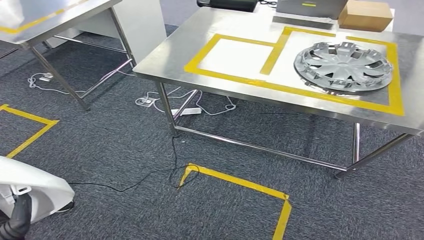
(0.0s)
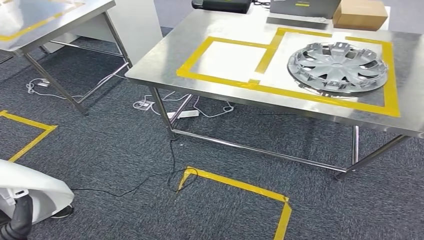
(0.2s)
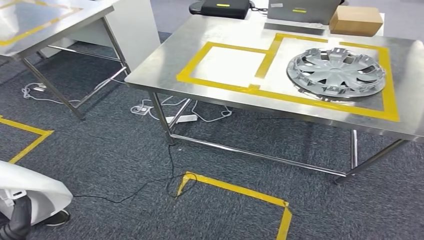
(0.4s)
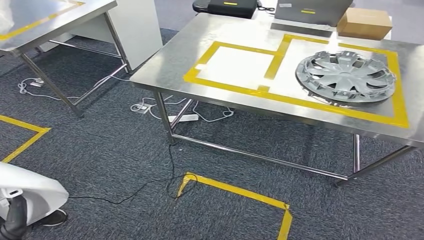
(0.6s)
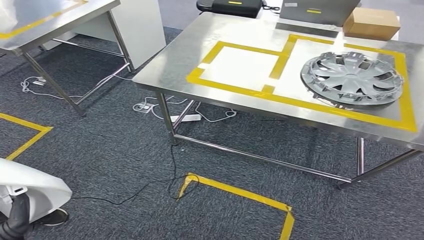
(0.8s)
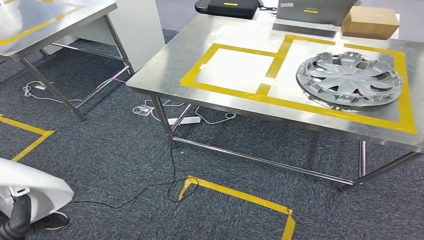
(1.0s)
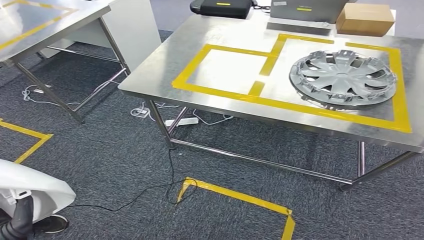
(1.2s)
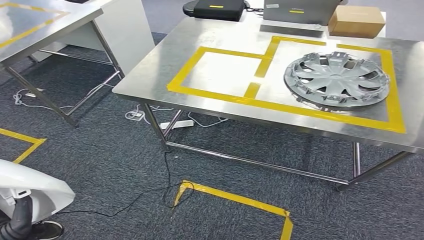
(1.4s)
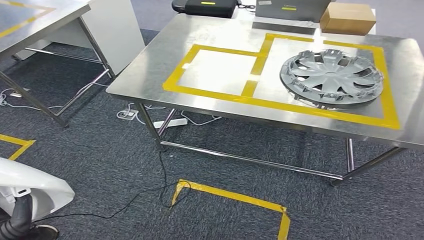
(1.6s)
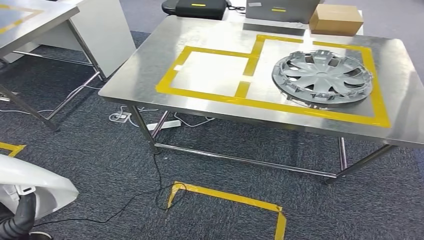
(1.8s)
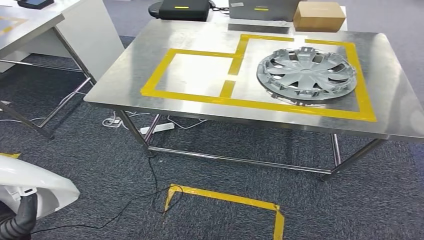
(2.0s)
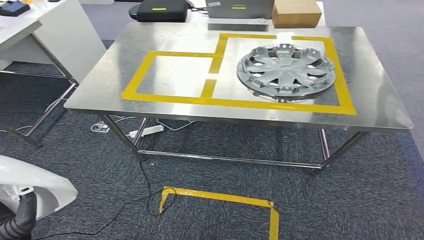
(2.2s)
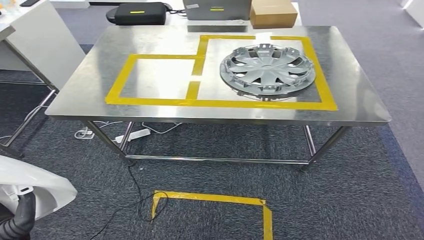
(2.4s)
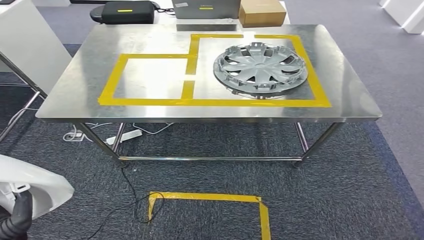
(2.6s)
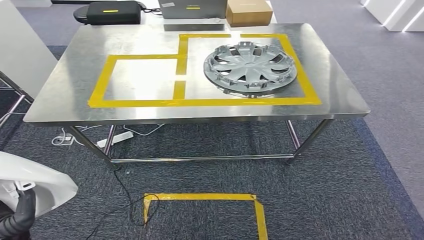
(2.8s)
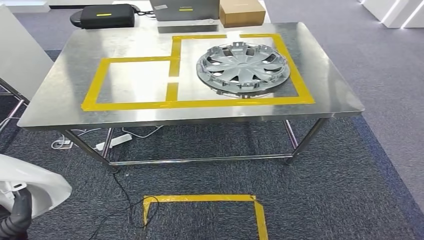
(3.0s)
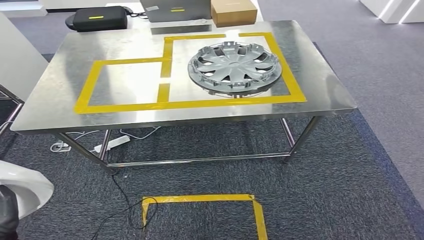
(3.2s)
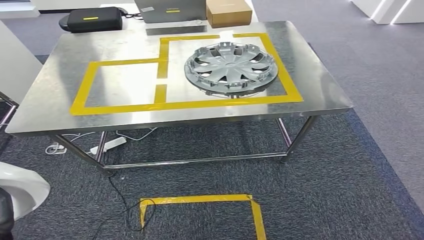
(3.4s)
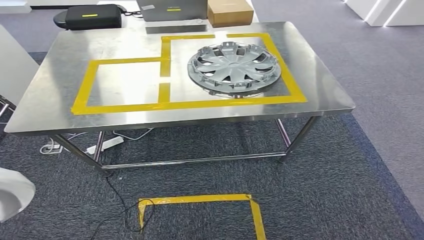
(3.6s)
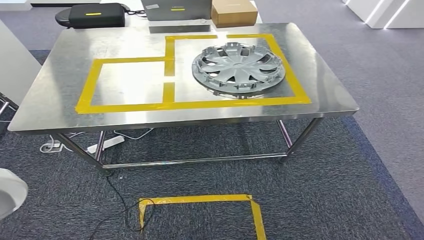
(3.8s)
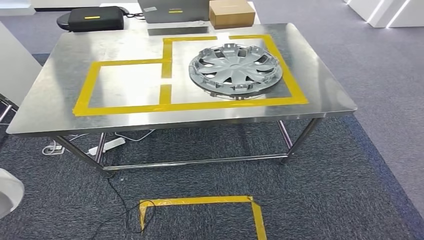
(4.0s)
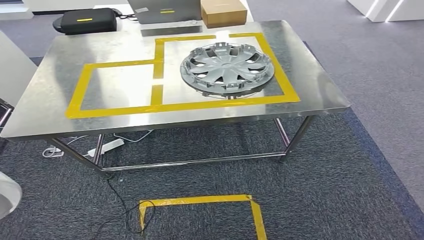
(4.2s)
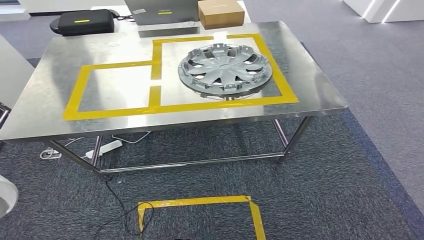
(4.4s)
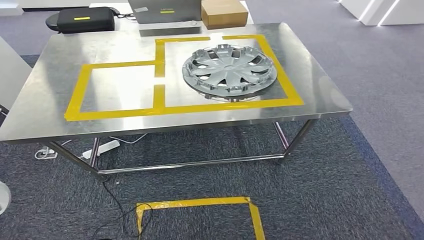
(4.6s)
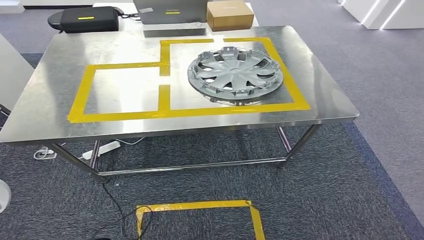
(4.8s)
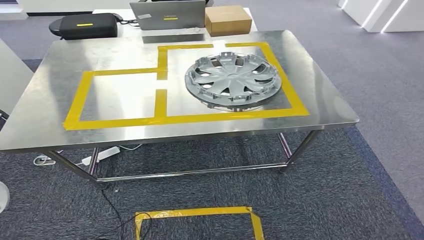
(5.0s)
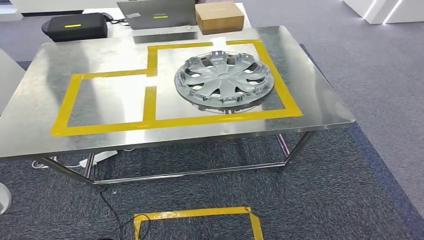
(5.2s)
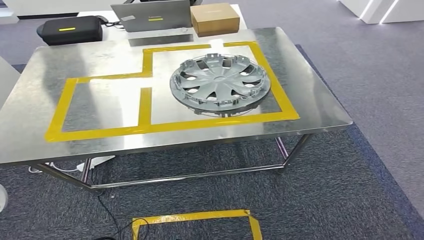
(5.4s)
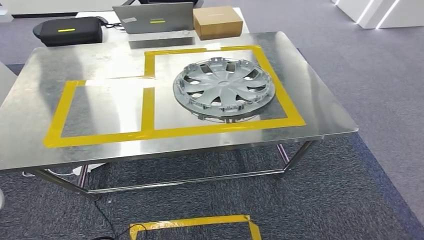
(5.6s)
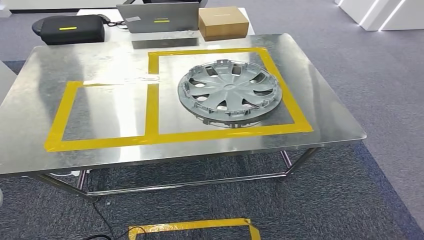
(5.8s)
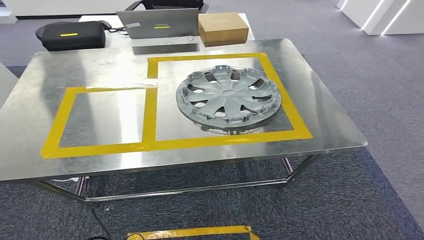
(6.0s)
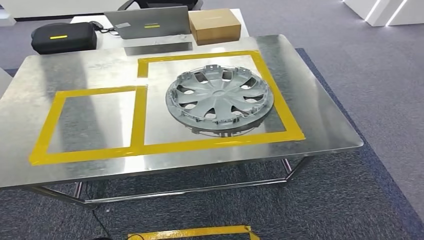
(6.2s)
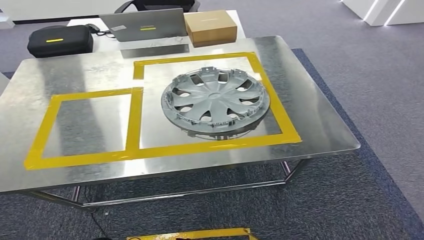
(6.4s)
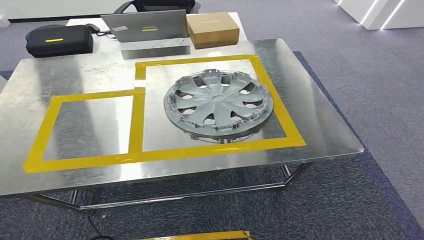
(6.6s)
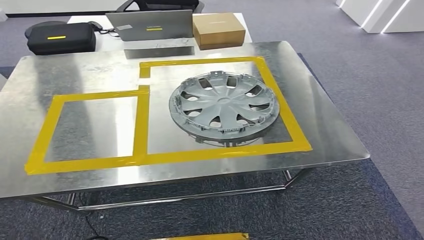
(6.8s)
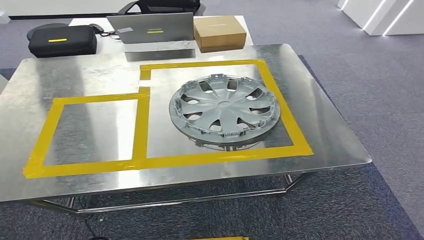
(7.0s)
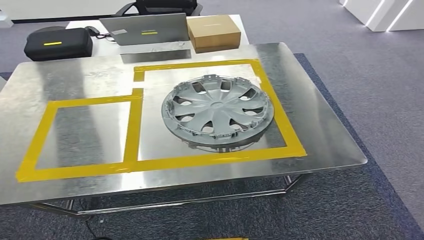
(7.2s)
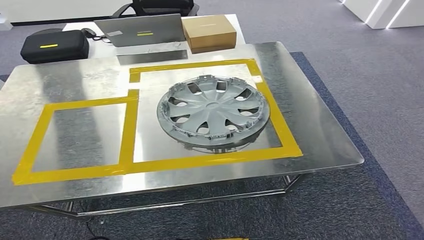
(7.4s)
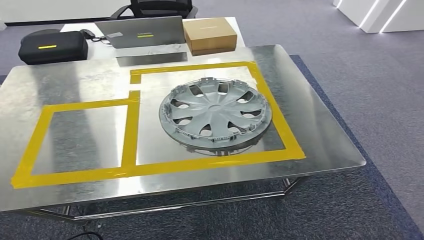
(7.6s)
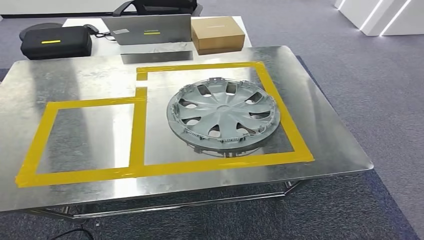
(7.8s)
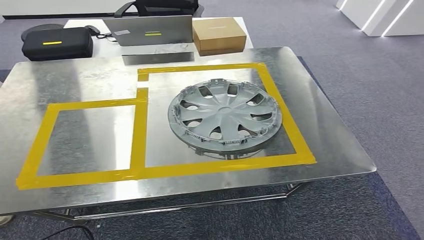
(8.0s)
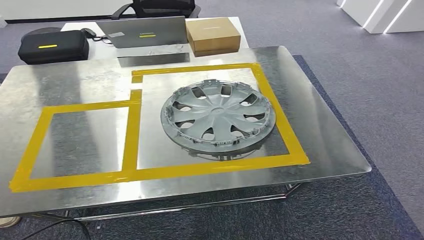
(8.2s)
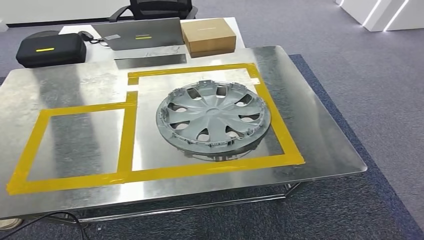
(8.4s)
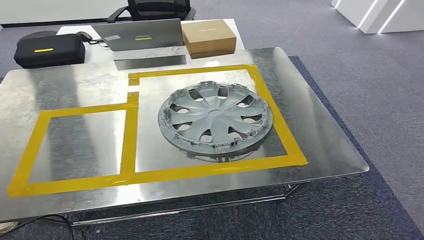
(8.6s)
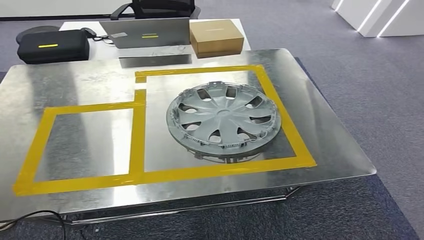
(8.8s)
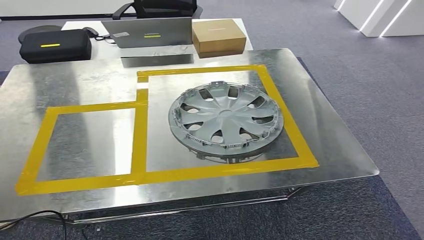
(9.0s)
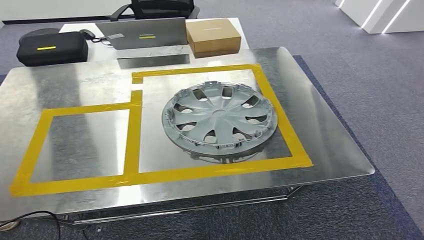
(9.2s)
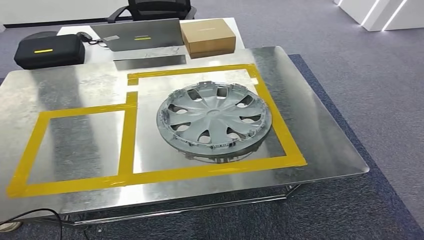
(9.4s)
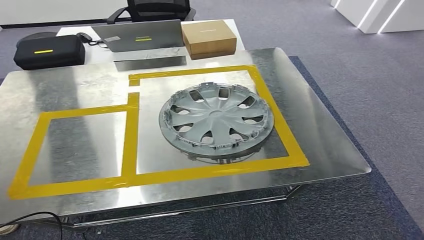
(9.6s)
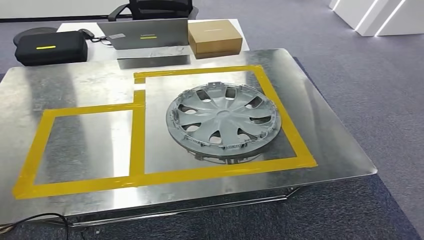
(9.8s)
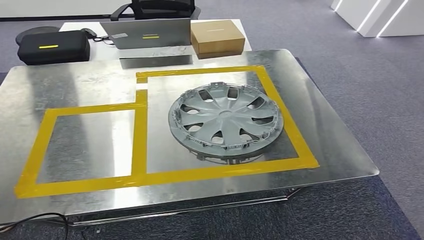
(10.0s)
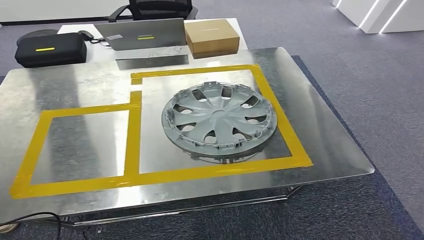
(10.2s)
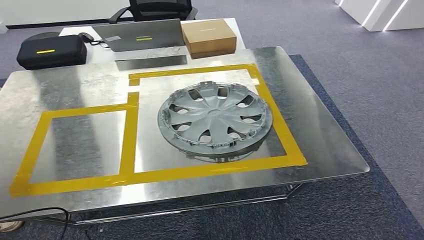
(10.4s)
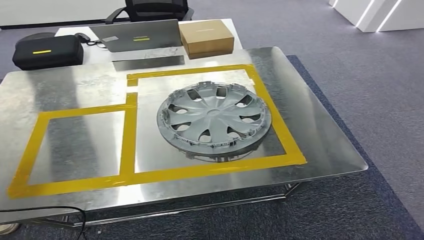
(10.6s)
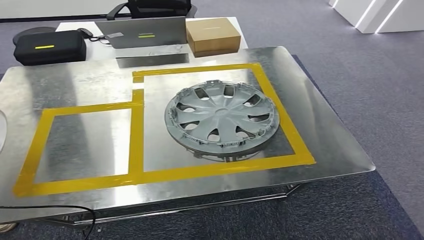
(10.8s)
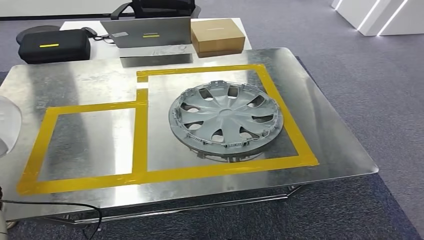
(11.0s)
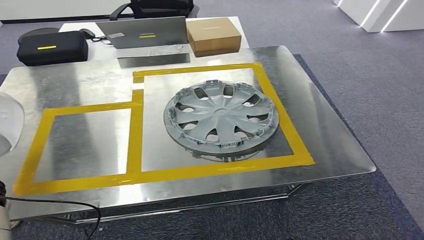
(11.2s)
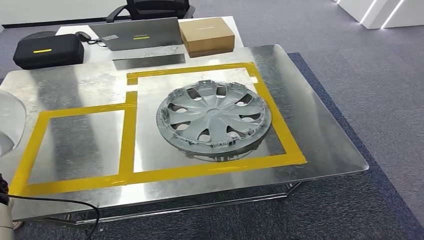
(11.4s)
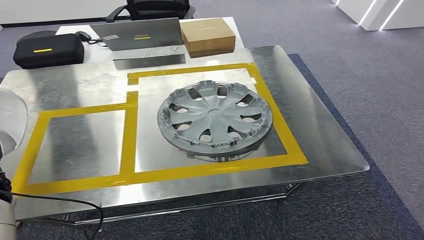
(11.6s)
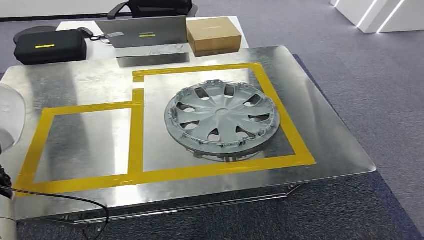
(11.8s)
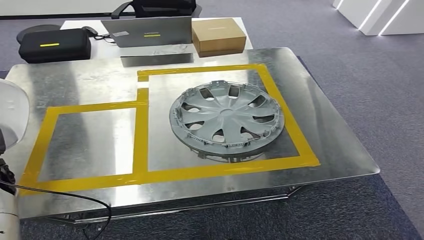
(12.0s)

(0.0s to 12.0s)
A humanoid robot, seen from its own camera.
Step, 0.0s - 12.0s: Move the small parts to the workbench.

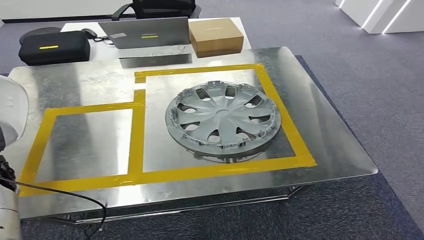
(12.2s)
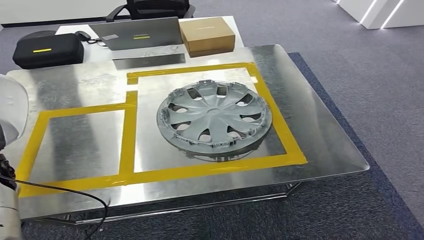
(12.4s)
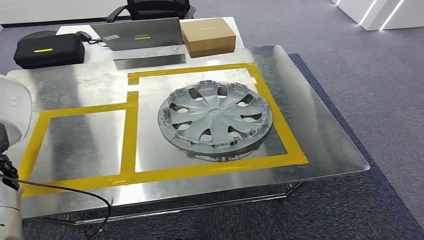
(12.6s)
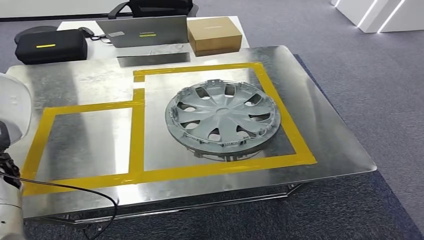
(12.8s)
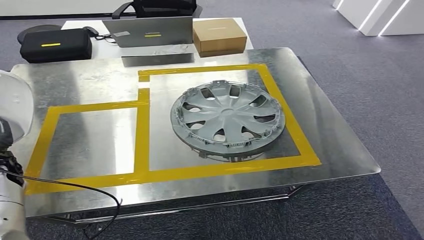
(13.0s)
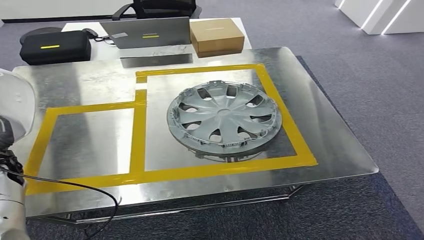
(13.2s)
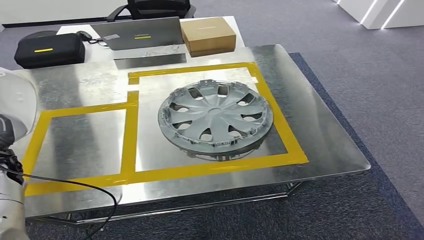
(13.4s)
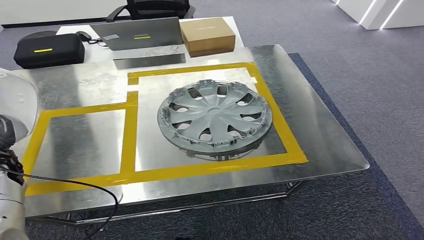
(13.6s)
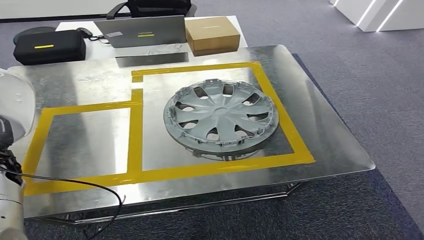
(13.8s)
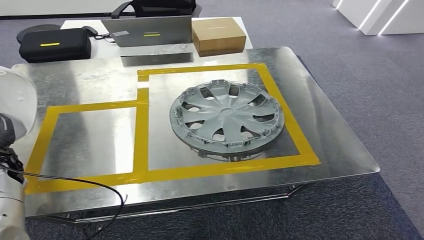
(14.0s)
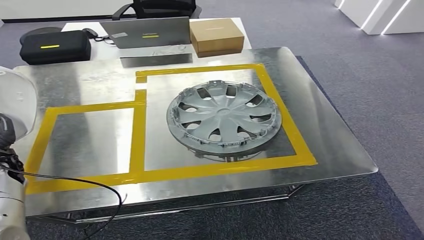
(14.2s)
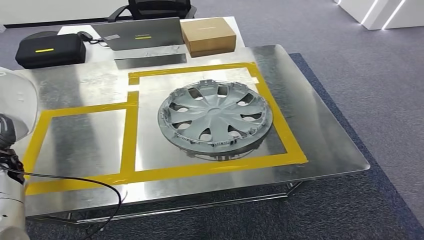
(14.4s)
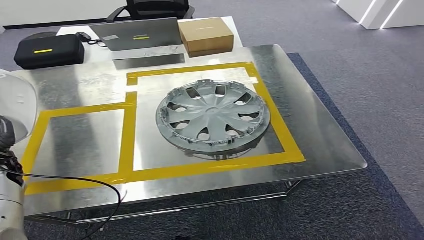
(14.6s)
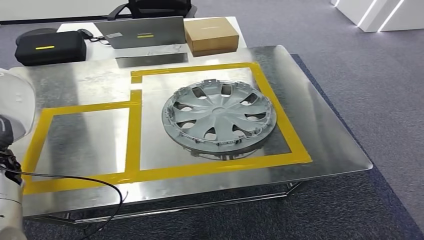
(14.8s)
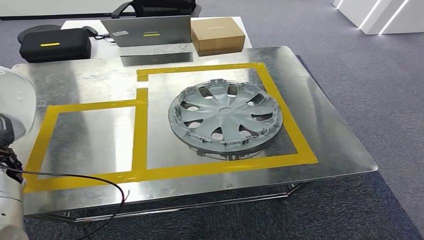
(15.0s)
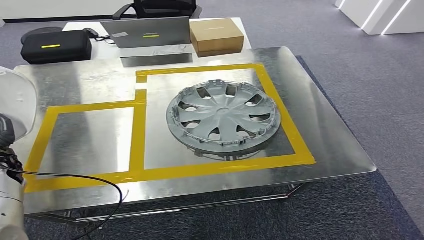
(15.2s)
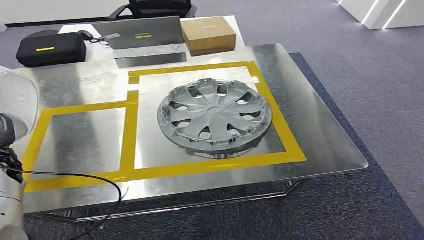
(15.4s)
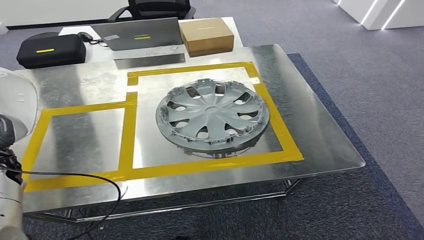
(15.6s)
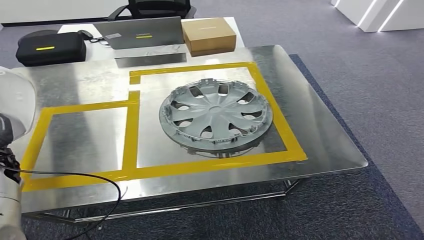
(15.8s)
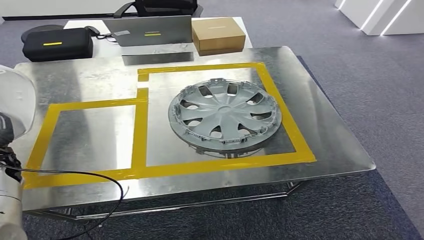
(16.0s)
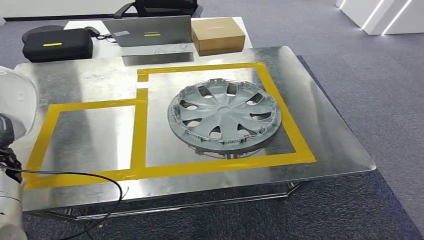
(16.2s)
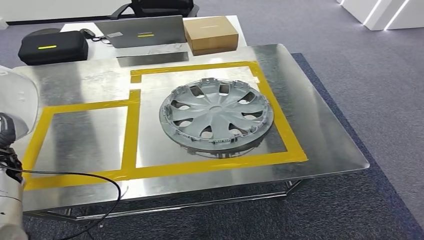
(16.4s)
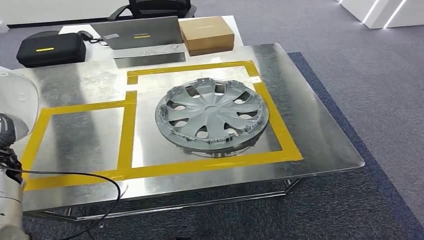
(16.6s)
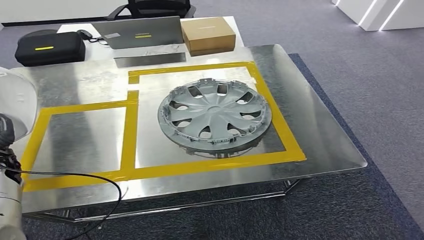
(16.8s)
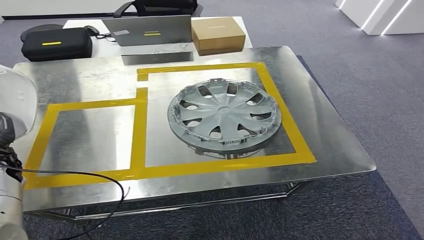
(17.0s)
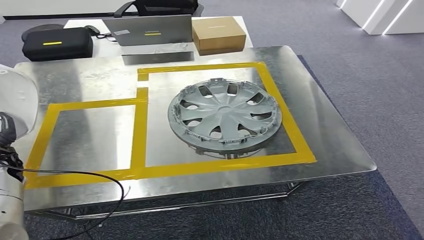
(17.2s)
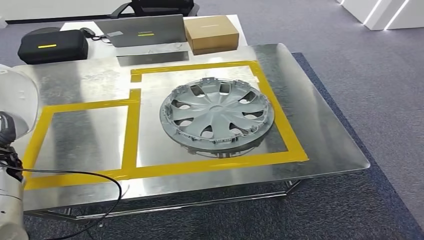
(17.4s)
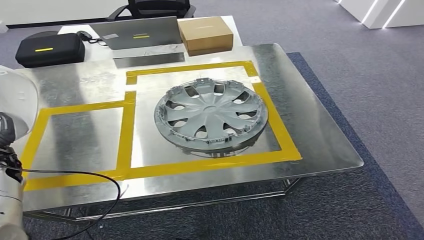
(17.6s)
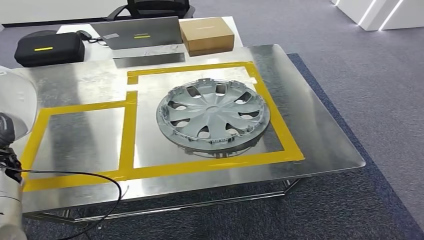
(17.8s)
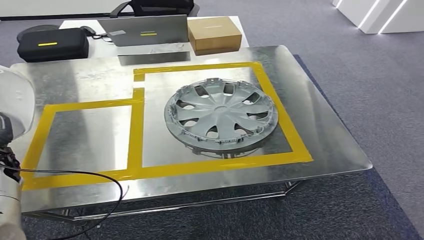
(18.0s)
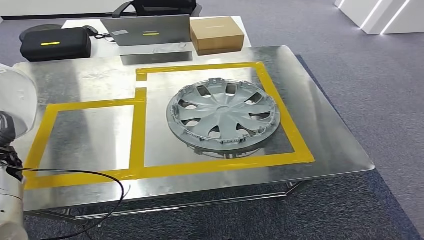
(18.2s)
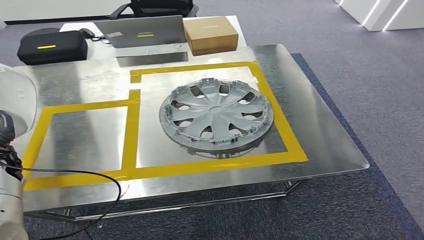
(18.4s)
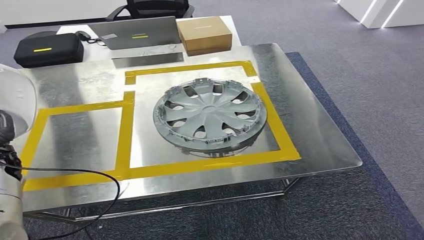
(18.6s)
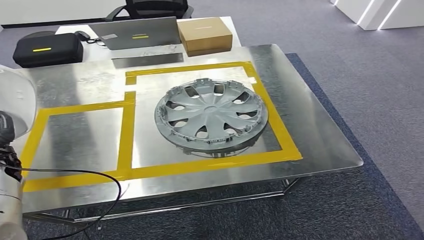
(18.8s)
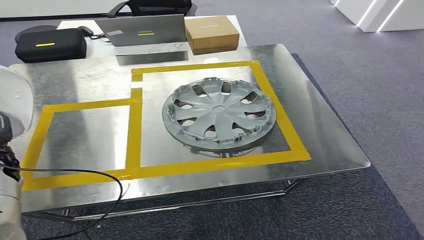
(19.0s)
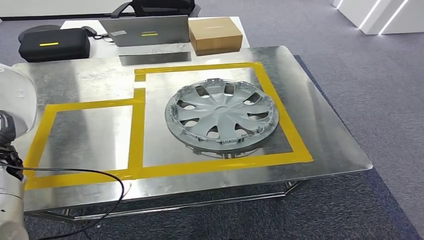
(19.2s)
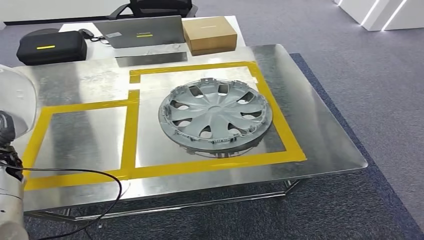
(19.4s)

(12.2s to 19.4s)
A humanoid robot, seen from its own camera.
18.0s - 19.4s: Both hands stay about where they are.
